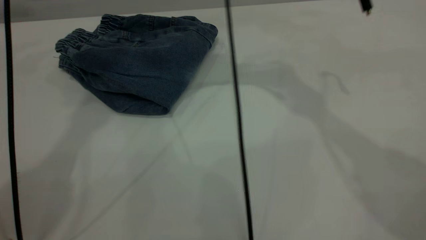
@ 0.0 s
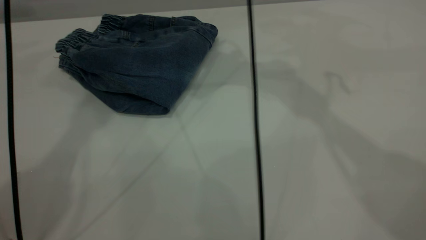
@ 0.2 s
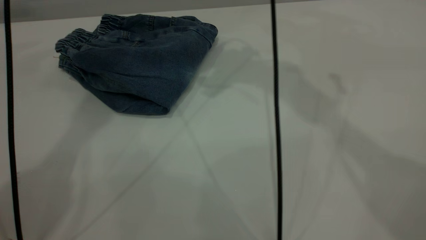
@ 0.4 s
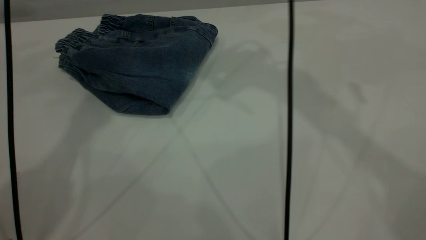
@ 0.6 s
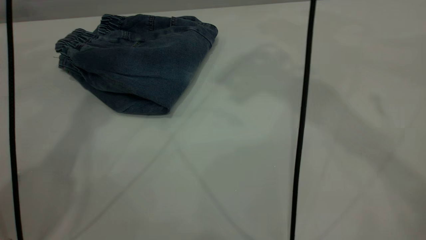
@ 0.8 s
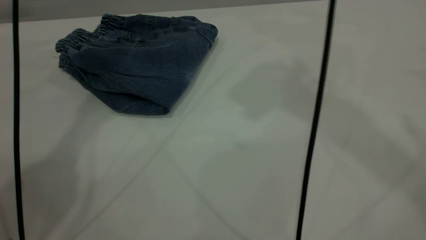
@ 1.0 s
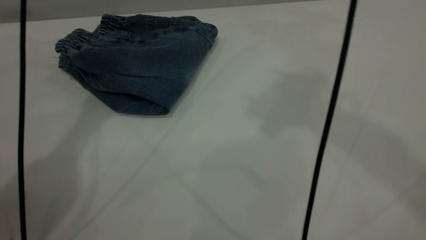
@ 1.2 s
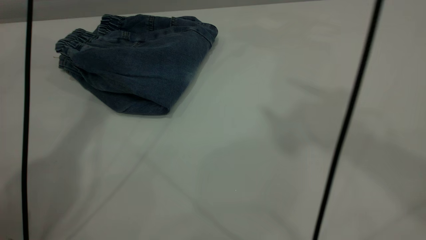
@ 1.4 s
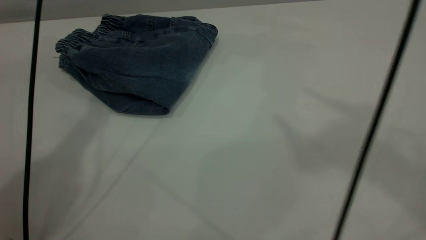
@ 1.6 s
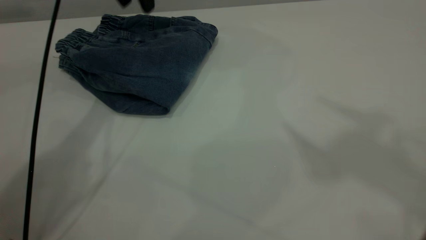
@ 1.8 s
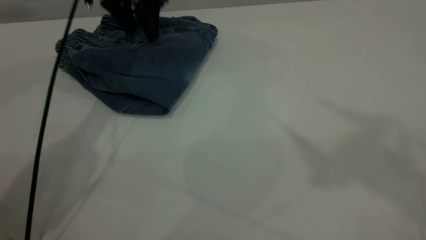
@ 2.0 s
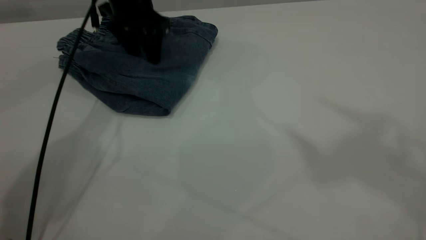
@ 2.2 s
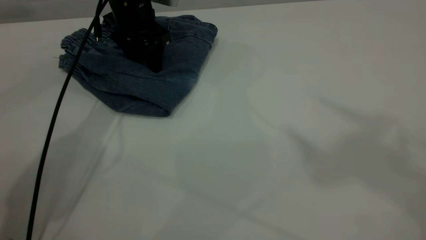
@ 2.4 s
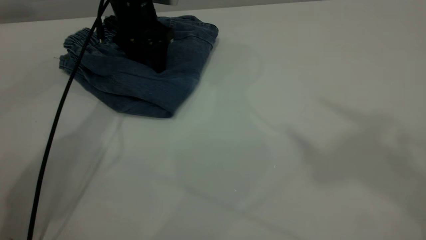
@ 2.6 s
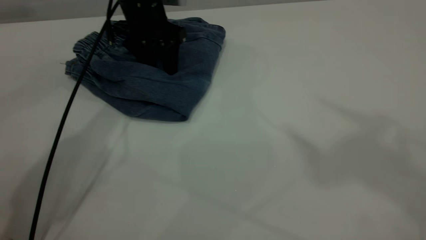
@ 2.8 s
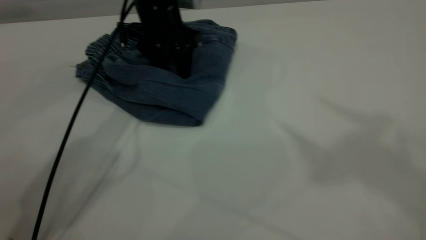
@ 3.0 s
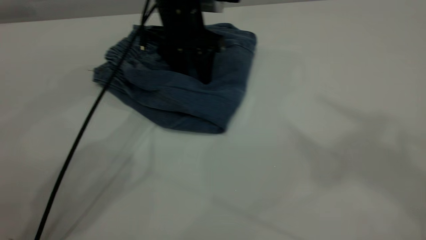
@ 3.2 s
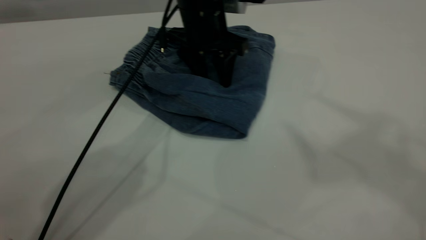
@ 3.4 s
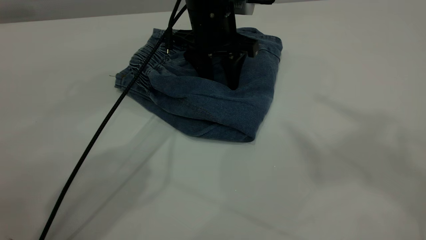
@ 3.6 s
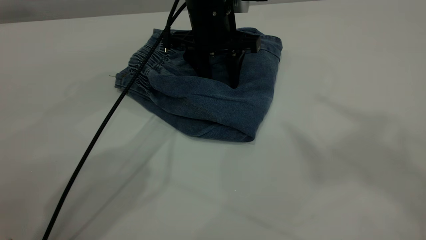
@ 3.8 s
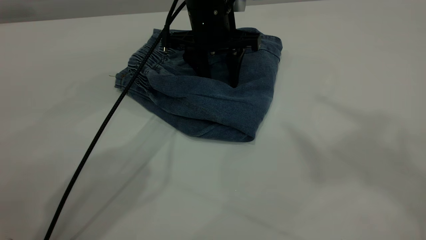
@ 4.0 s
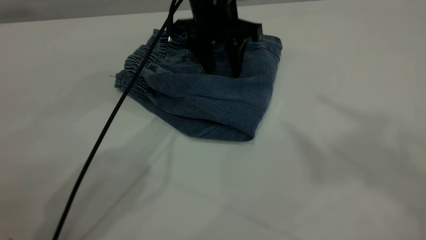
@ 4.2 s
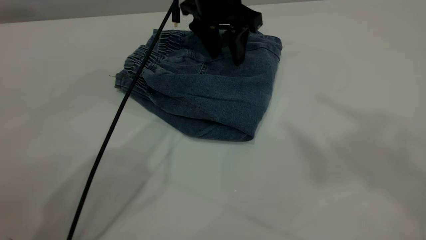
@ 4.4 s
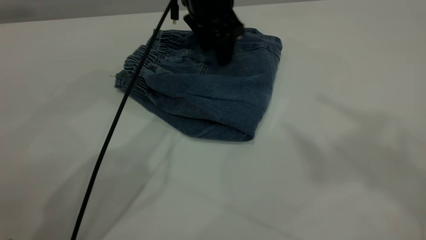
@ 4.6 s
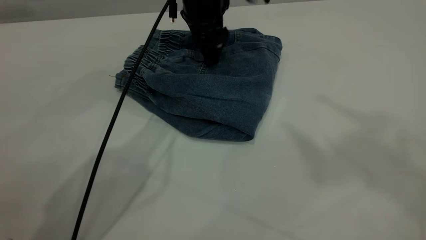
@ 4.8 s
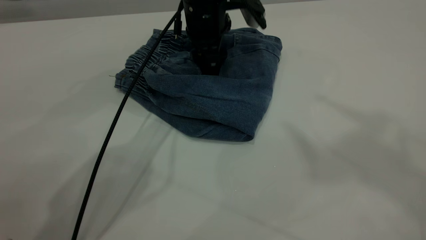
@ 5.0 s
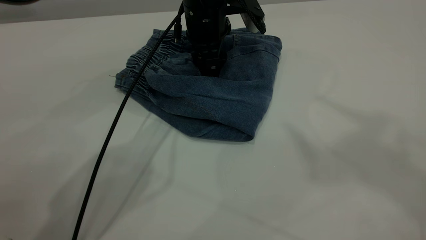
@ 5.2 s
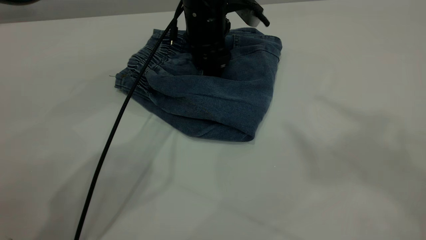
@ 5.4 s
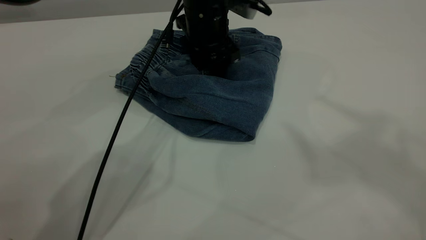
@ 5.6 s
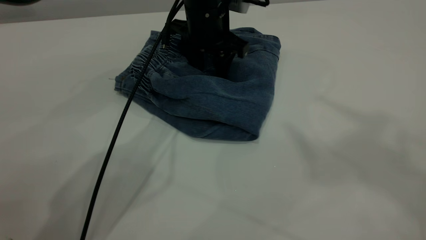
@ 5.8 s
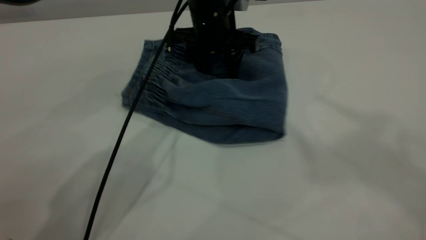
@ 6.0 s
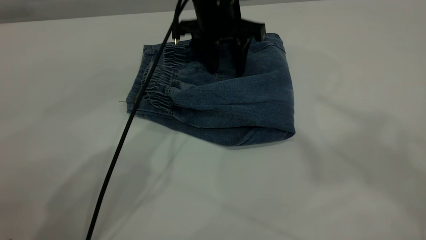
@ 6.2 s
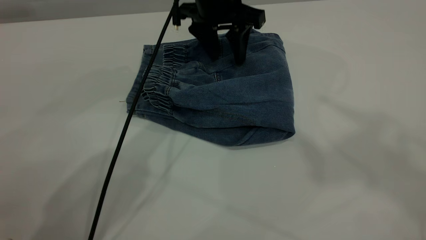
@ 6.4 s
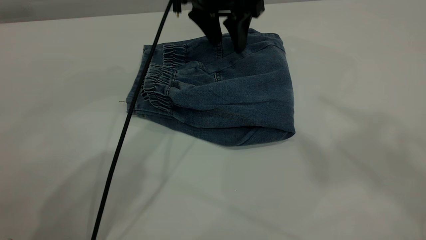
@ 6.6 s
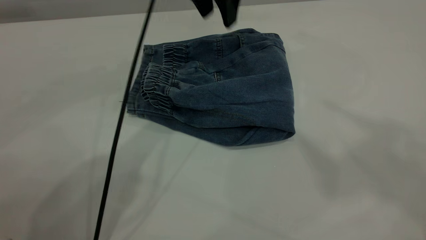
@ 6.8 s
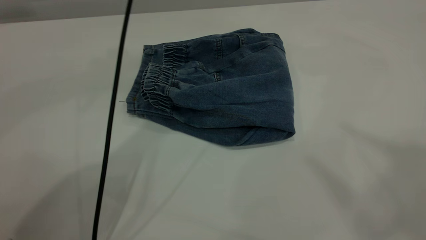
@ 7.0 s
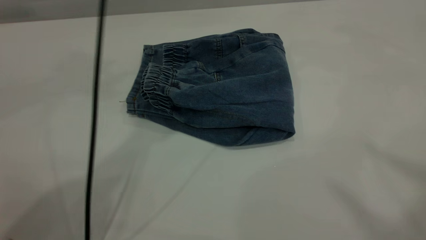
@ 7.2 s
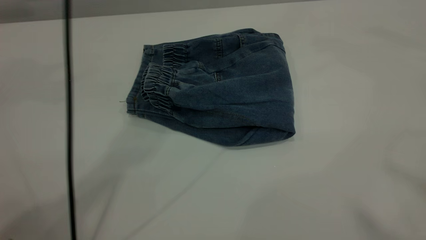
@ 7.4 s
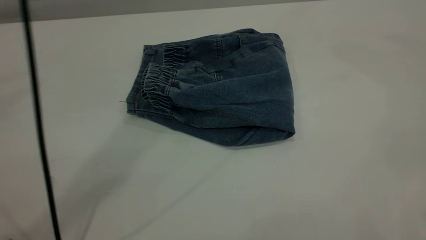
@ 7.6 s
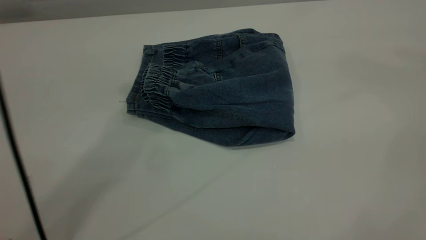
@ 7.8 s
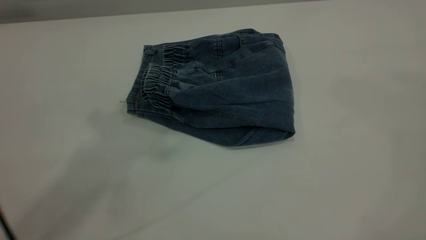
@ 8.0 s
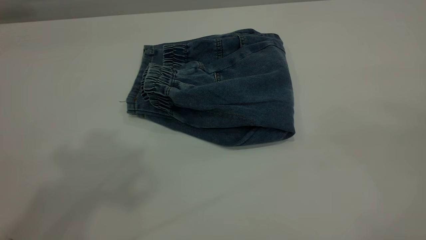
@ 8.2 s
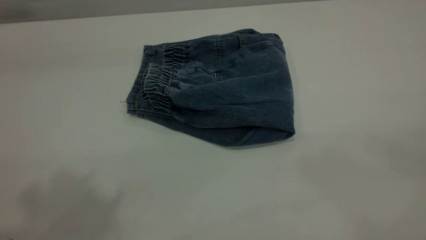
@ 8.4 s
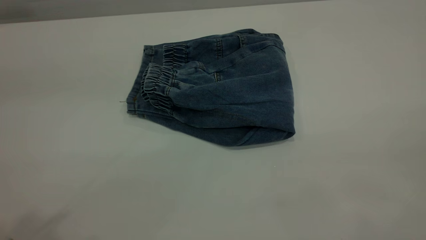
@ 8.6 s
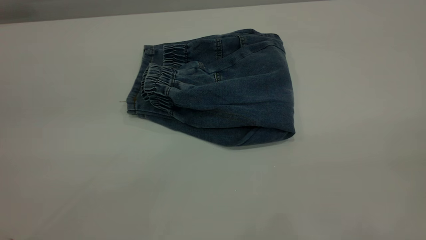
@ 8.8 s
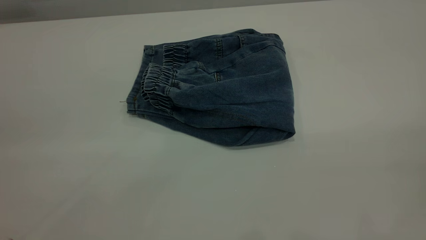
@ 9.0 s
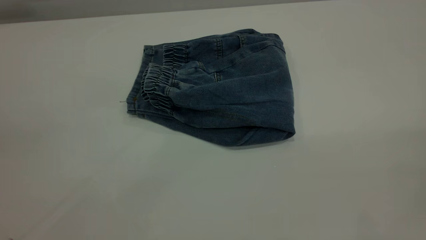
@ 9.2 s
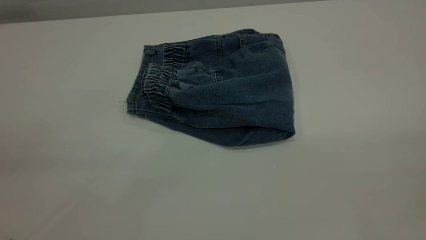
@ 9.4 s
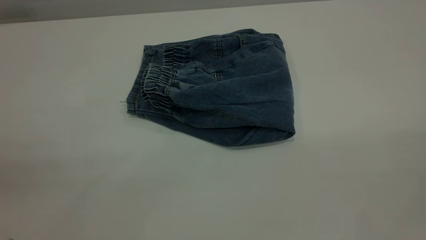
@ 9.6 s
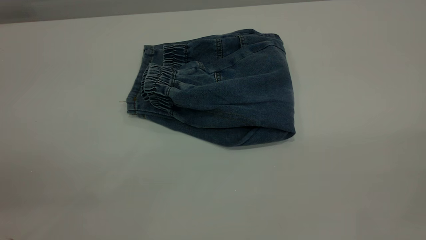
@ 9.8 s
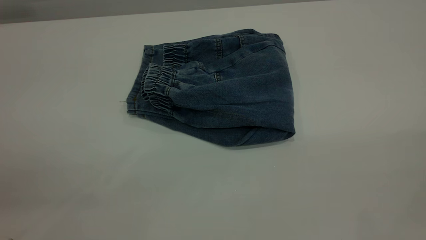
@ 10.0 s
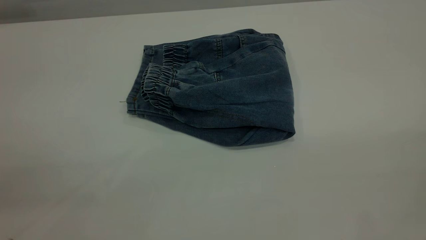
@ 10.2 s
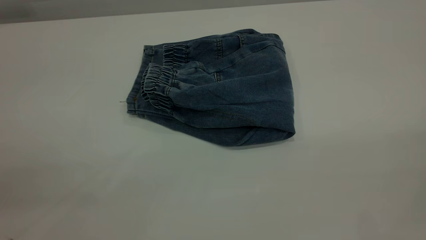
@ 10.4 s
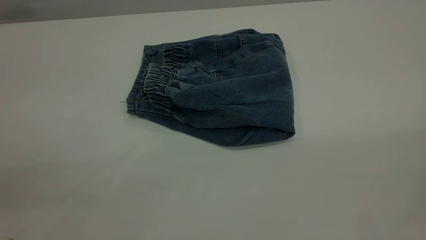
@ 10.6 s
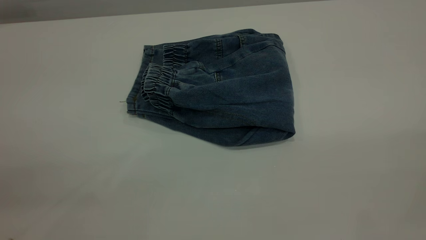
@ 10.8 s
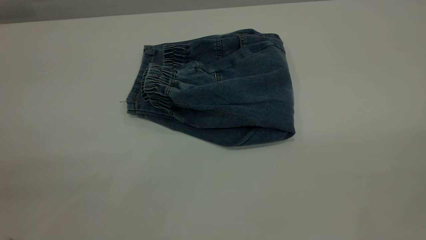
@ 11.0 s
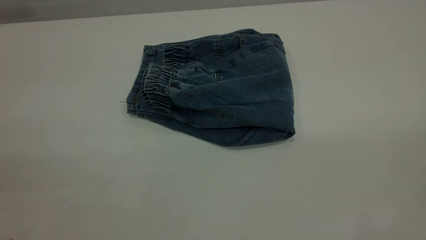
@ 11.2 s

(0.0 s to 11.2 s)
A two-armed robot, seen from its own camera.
0.0 s - 1.6 s: The left gripper shifts about 15 cm downward. Meanwhile the right gripper goes about 35 cm upward, backward and to the right.
1.6 s - 3.2 s: The left gripper goes approximately 20 cm downward and to the right.
6.4 s - 8.0 s: The left gripper goes approximately 40 cm upward and backward, while the right gripper moves backward, roughly 25 cm.
